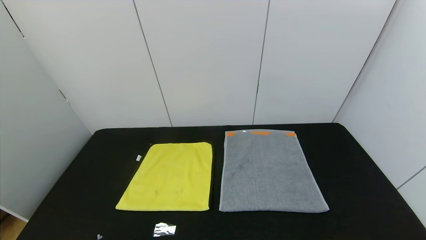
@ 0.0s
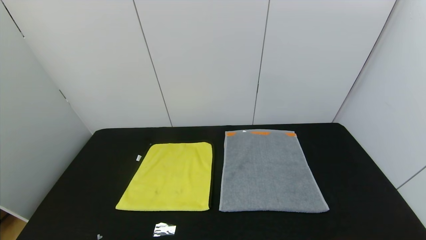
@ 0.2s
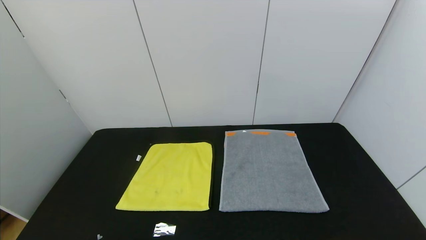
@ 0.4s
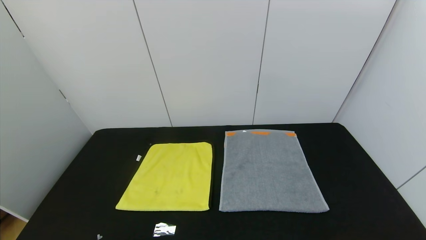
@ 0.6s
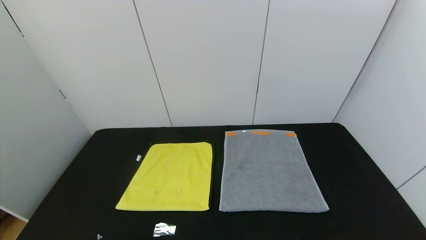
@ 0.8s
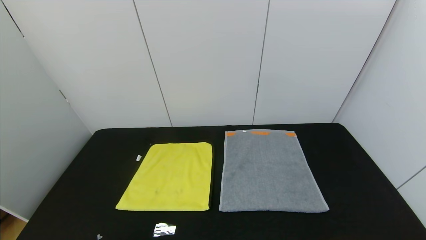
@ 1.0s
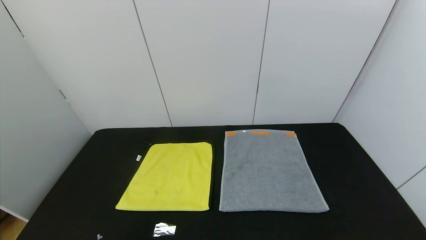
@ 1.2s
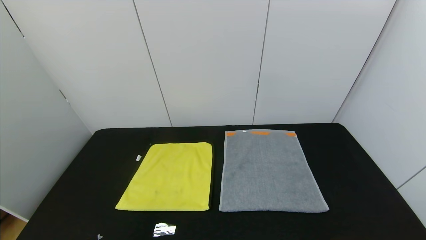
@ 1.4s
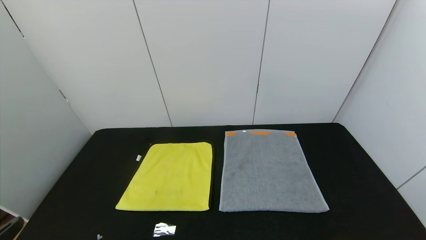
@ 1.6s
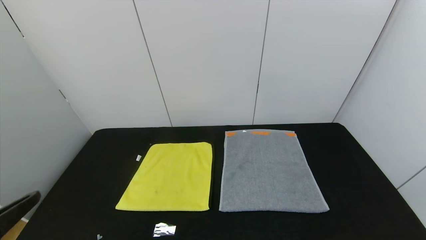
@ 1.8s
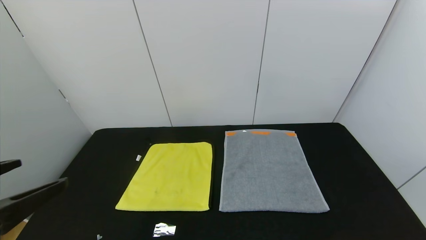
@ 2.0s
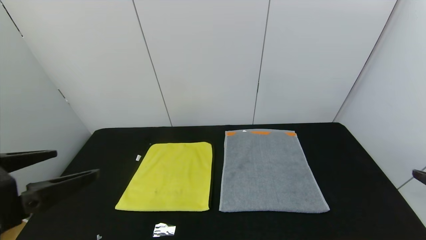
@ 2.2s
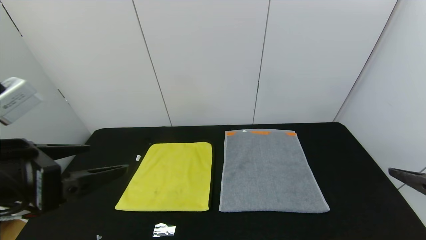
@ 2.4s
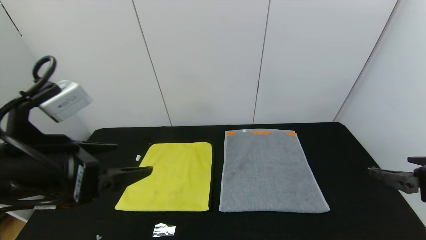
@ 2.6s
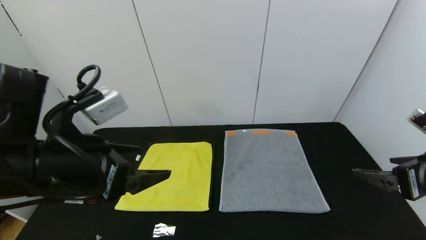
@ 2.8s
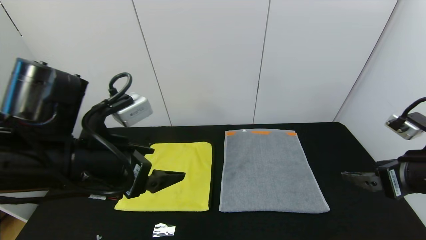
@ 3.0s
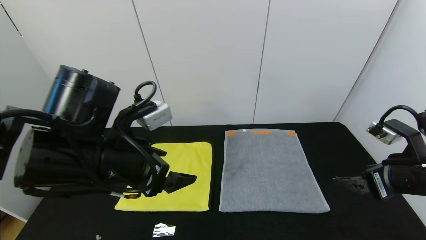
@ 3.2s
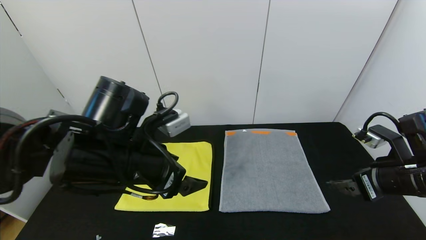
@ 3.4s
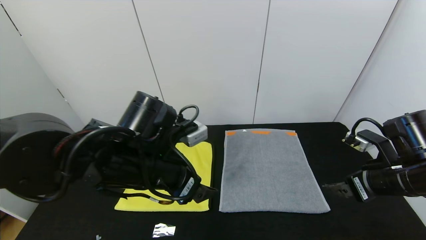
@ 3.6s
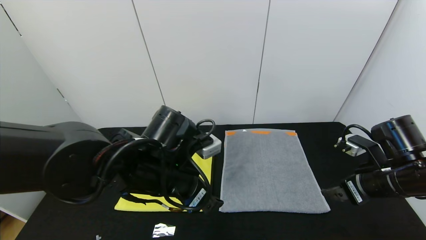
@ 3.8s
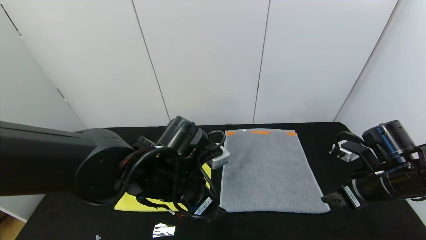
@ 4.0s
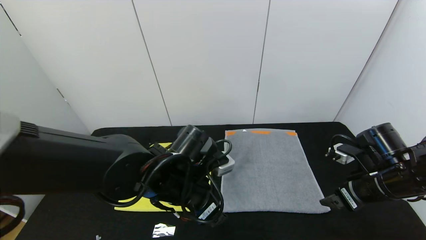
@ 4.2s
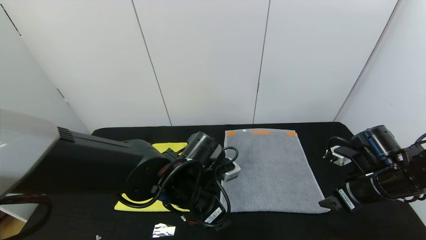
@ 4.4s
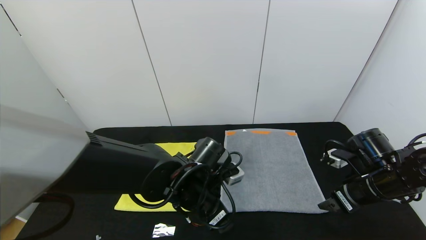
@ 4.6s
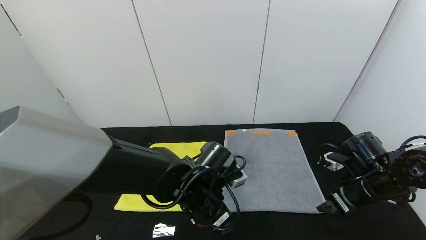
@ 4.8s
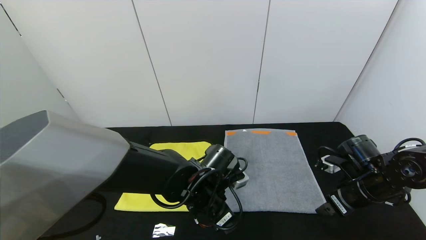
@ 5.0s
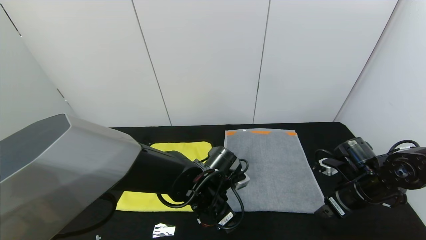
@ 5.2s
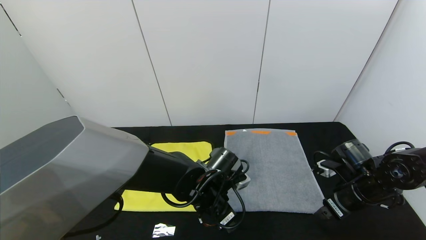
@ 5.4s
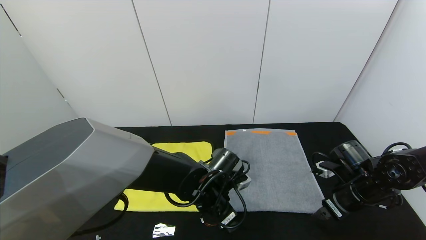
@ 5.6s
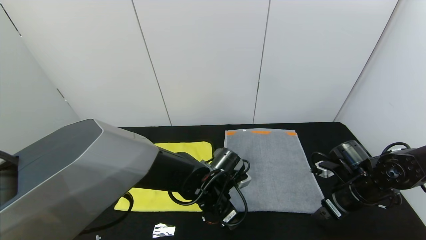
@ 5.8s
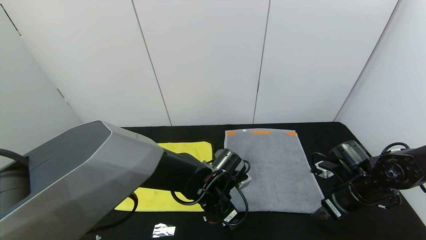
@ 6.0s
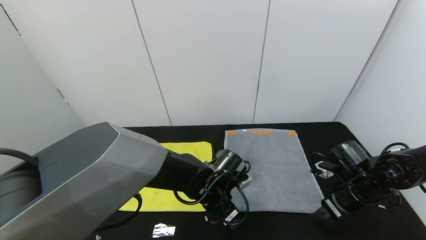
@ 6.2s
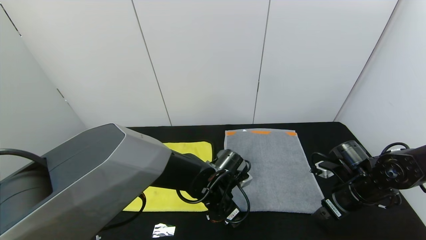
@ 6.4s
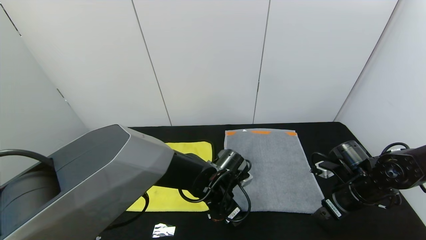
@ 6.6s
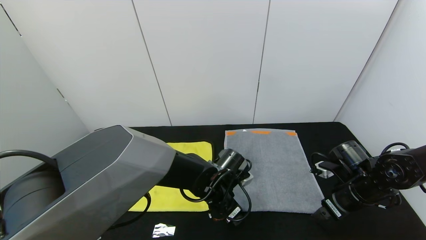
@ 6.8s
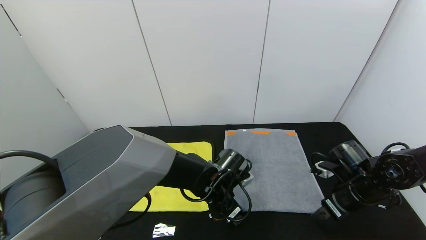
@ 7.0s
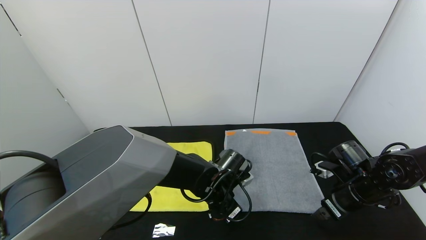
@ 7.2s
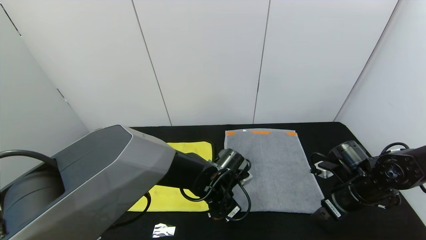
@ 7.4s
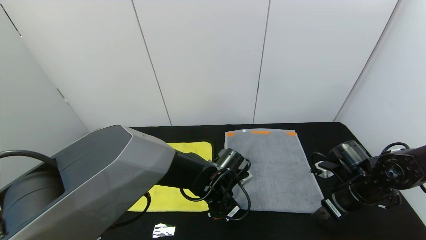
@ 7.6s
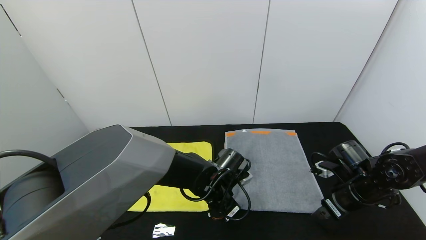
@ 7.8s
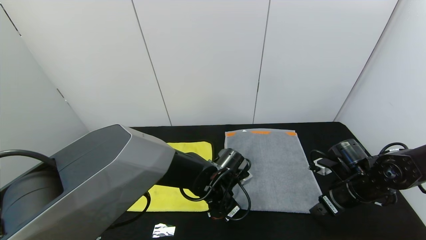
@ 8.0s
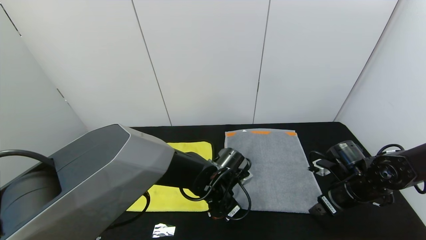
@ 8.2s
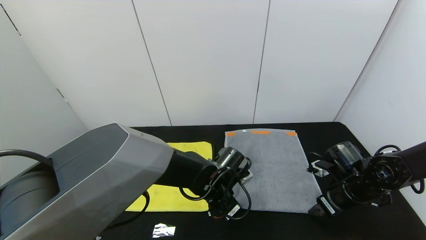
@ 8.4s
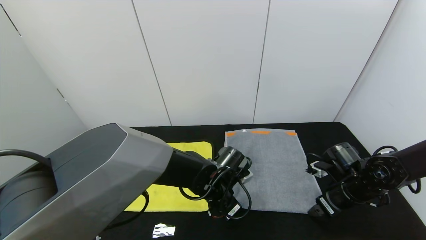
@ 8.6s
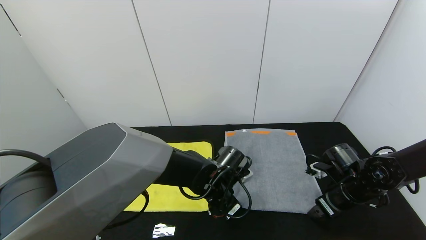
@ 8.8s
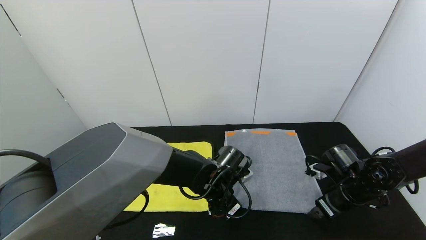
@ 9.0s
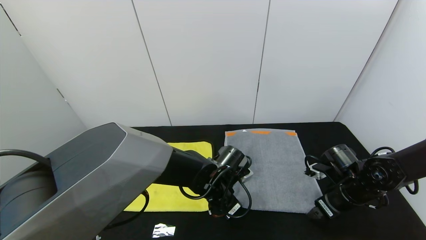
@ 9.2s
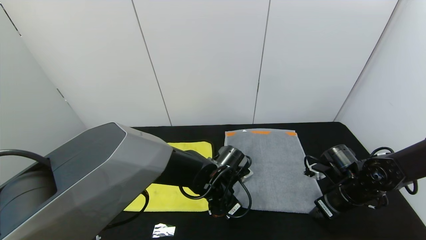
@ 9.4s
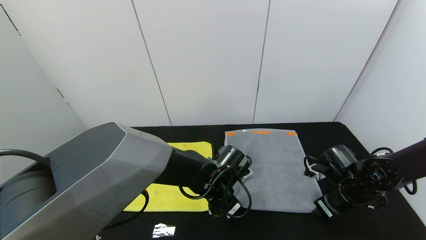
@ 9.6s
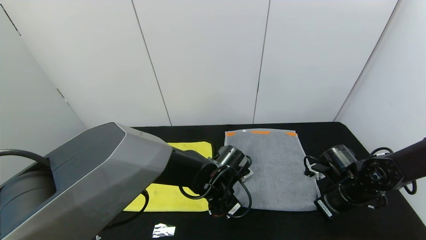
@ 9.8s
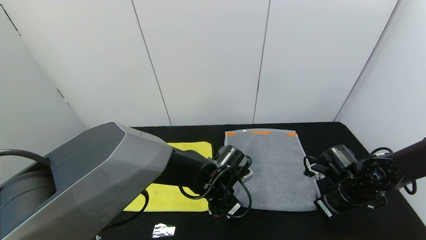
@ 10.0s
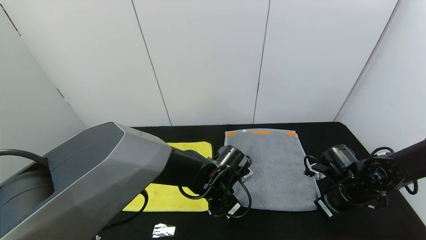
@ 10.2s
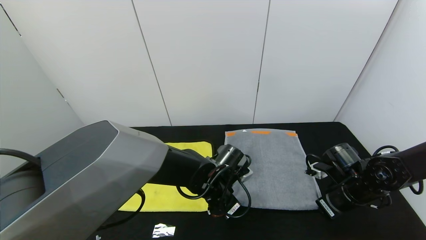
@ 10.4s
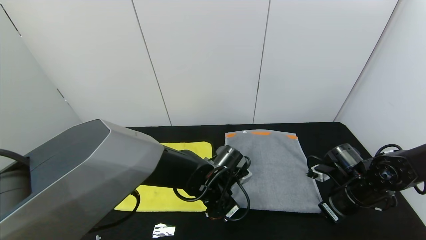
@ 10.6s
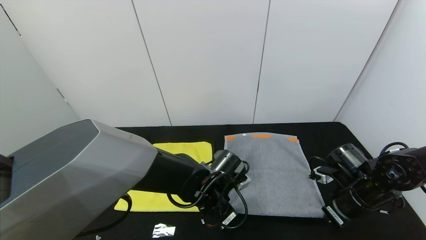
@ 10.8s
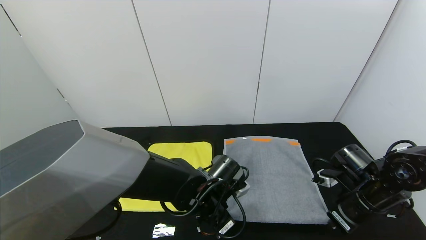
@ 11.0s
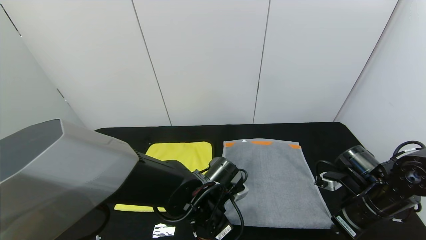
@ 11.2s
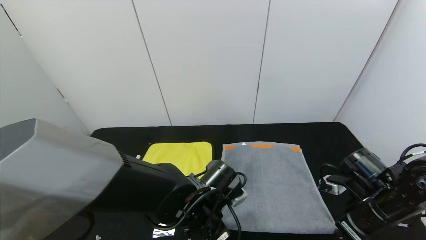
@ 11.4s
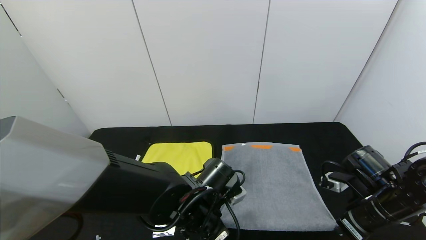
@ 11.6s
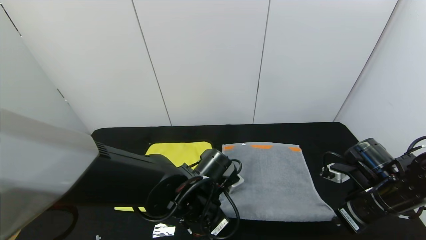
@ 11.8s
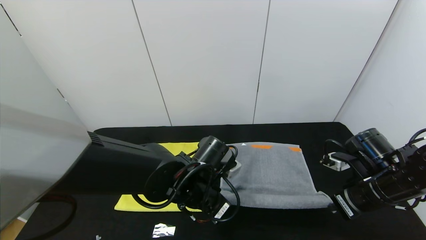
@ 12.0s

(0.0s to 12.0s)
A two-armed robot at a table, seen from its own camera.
Task of the whole recording: Use the gripper to fold the yellow towel and grey towel in half twice,then put the yellow towel on the grey towel.
1.6s - 3.0s: The left gripper is displaced forward and to the right by roughly 20 cm, while the right gripper travels forward by about 20 cm.
3.0s - 4.4s: The left gripper shifts roughly 15 cm downward, to the right and forward; the right gripper travels downward and forward by approximately 10 cm.
4.4s - 6.0s: Both grippers move downward, approximately 5 cm.
6.0s - 7.6s: The left gripper closes up.
7.6s - 9.0s: There are only small adjustments of the grippers.
9.0s - 10.4s: The right gripper closes up.
10.4s - 12.0s: The grippers both shift upward by about 5 cm.

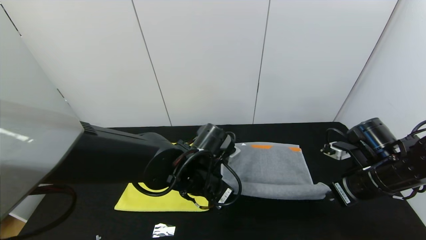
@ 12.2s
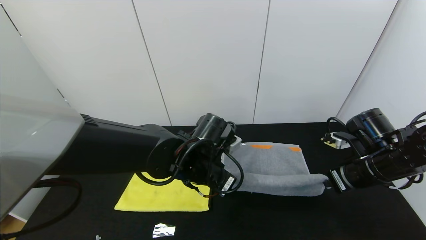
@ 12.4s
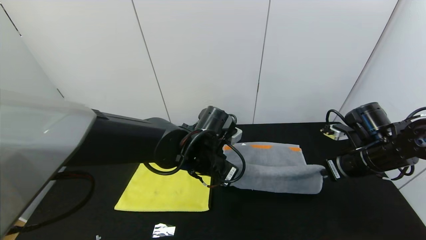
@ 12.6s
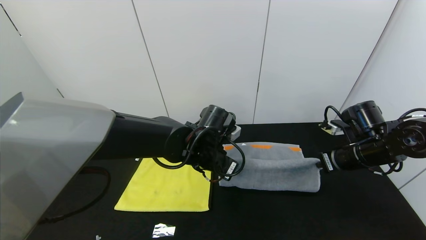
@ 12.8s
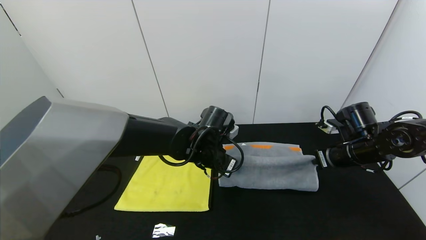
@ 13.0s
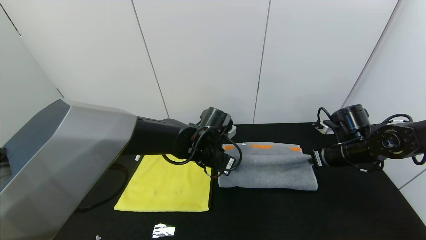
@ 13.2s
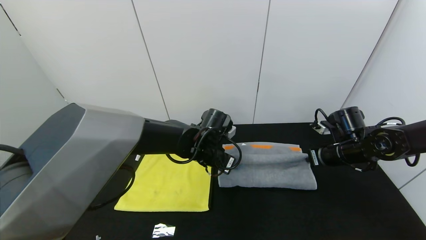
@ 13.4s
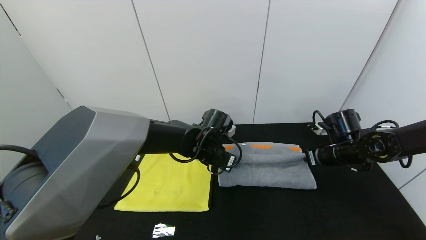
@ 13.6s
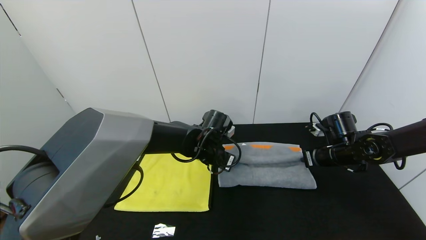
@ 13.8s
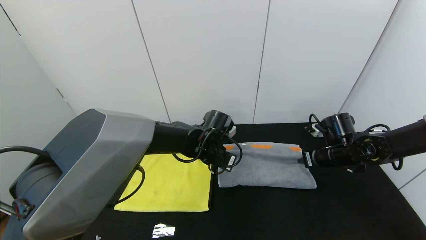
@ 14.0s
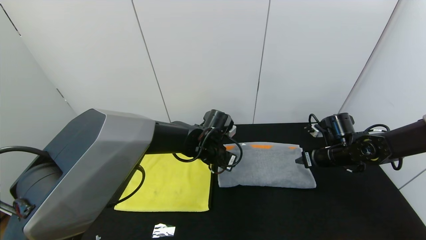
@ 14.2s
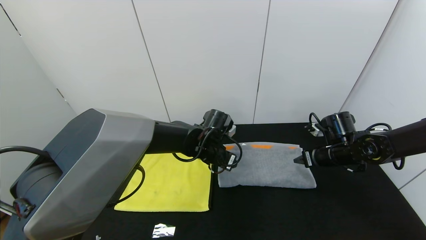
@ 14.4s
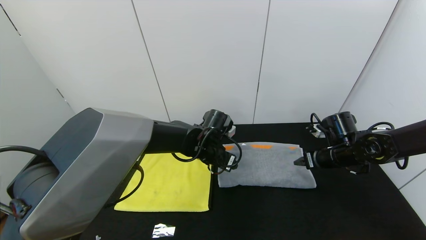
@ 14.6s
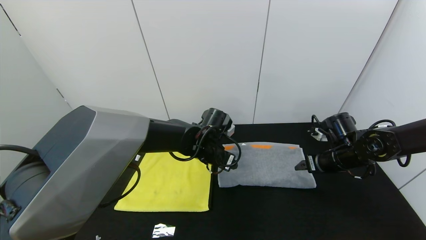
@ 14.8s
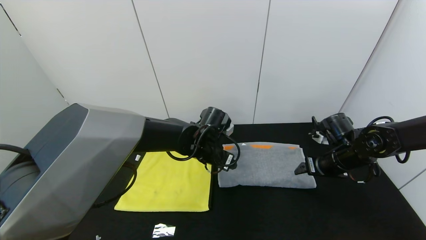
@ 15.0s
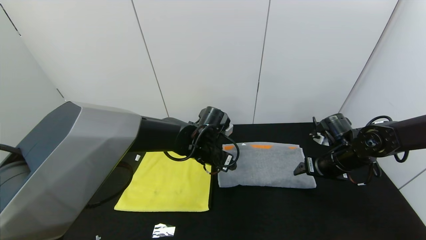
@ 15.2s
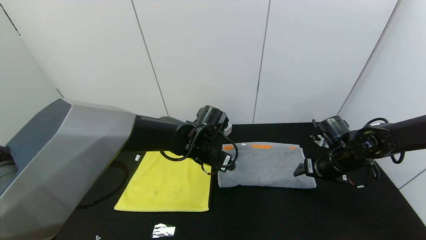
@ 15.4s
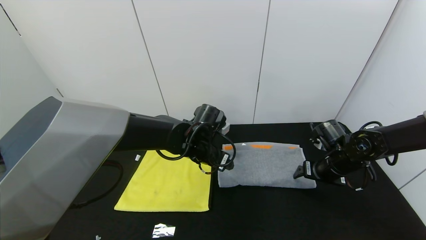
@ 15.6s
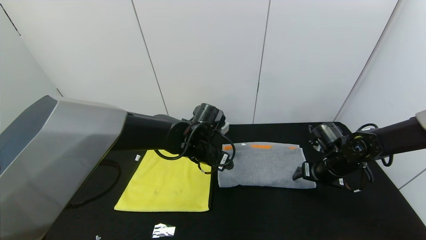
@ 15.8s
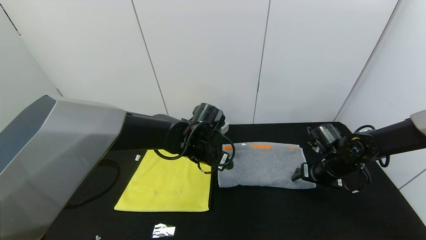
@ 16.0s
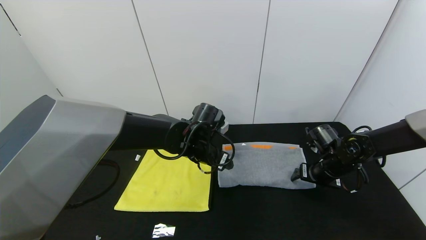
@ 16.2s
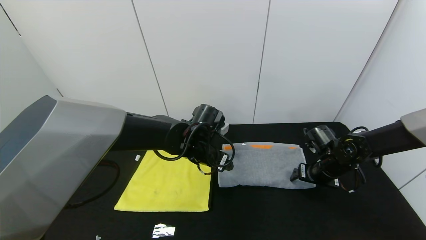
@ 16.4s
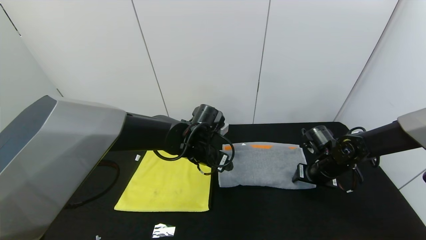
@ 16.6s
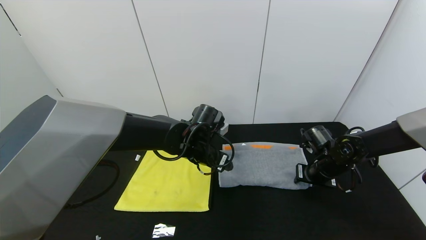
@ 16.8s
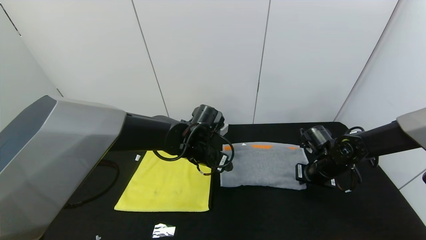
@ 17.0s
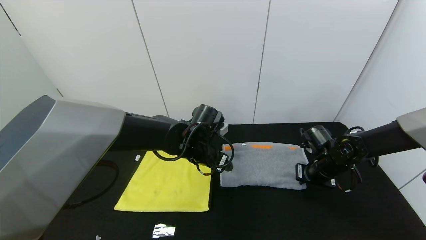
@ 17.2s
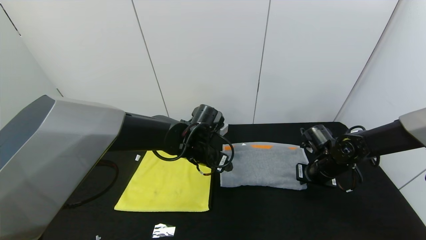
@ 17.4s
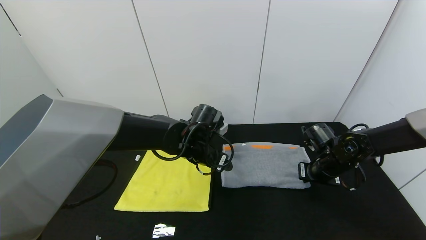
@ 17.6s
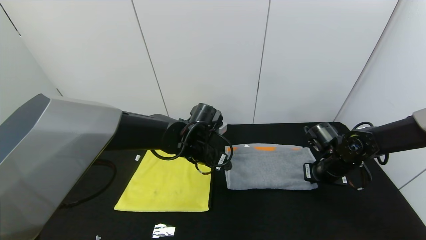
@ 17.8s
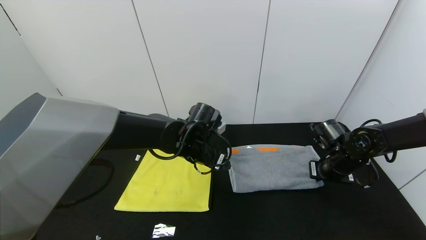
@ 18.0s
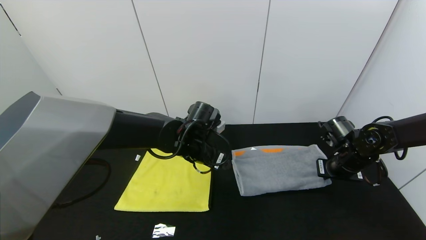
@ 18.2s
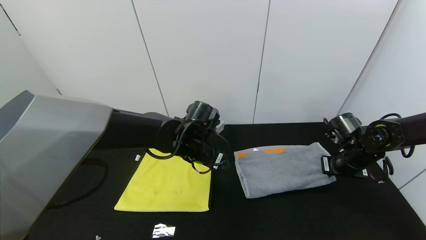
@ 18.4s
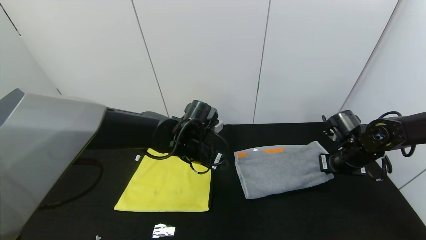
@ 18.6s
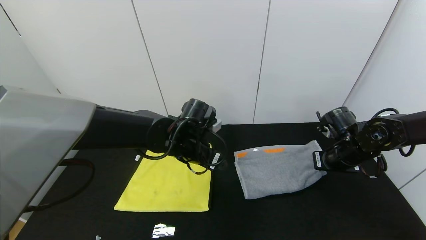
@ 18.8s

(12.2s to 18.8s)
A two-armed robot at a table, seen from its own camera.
Task of the whole recording: Use the gripper to fold the yellow towel and grey towel in half twice,then put the yellow towel on the grey towel.
Step, 12.2s - 14.4s: Fold the gray towel upwards with the left gripper.
12.2s - 13.8s: Both grippers move forward, roughly 10 cm.
13.8s - 15.4s: The right gripper opens up. Meanwhile the left gripper opens up.
15.4s - 17.2s: The right gripper closes its fingers.
17.2s - 18.8s: The right gripper heads upward, covering about 5 cm.
